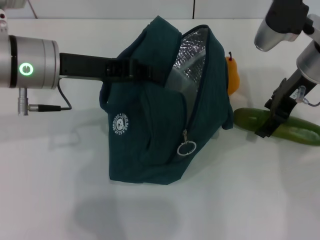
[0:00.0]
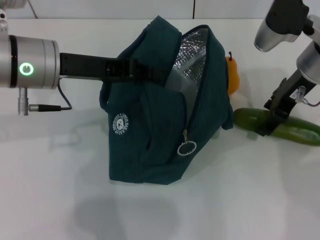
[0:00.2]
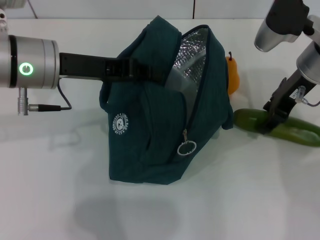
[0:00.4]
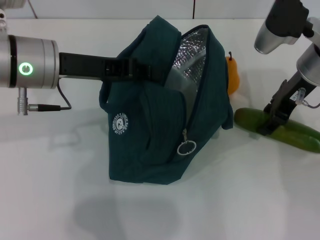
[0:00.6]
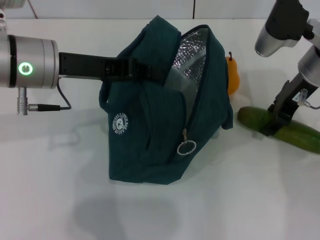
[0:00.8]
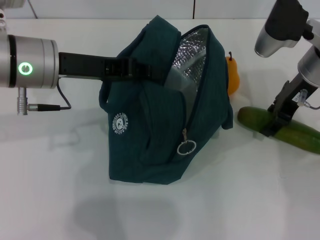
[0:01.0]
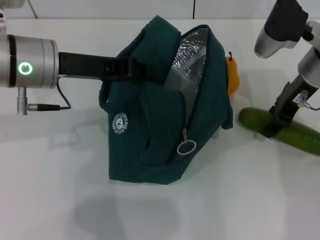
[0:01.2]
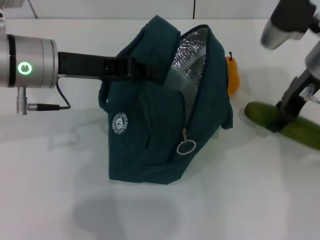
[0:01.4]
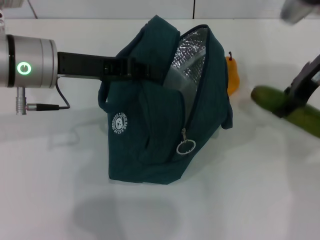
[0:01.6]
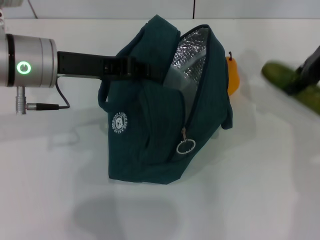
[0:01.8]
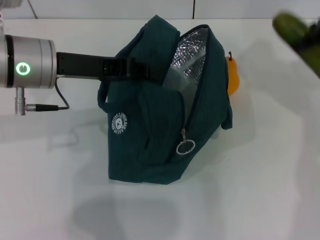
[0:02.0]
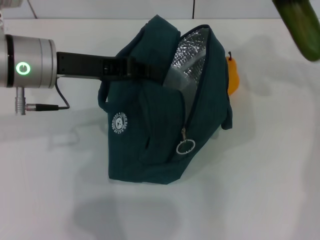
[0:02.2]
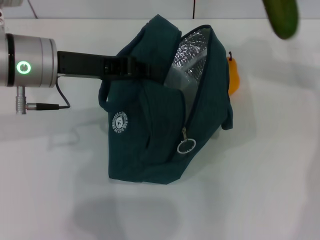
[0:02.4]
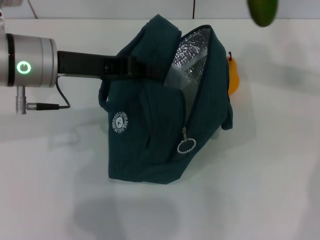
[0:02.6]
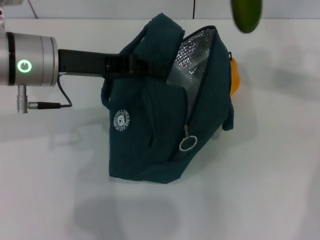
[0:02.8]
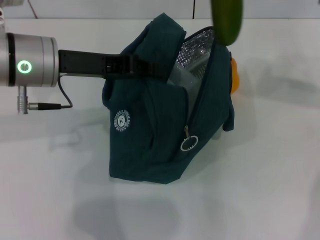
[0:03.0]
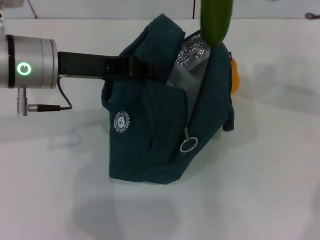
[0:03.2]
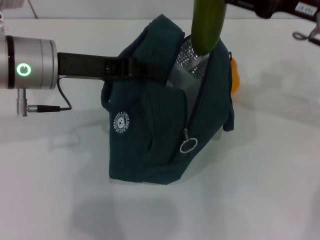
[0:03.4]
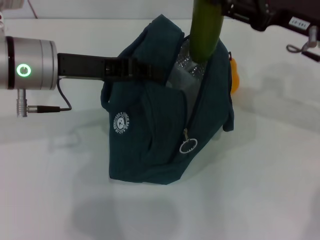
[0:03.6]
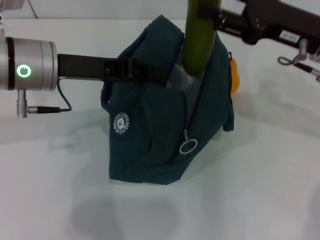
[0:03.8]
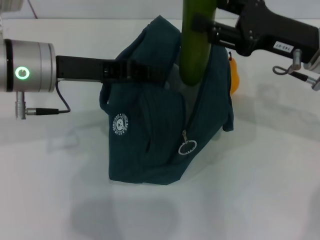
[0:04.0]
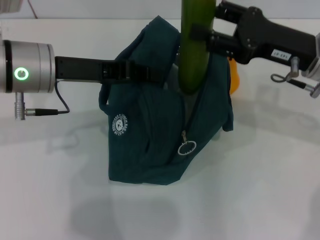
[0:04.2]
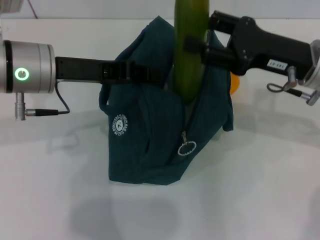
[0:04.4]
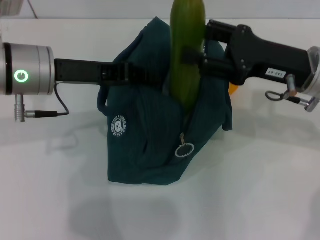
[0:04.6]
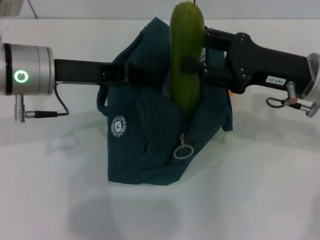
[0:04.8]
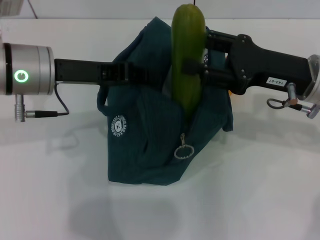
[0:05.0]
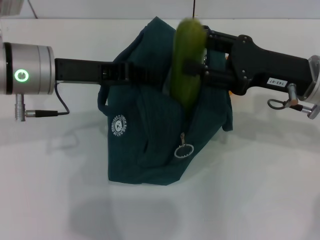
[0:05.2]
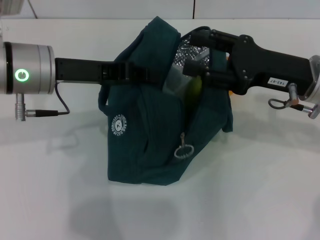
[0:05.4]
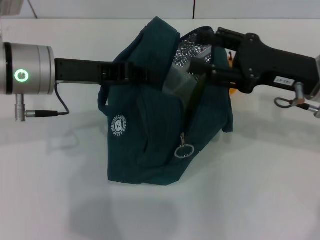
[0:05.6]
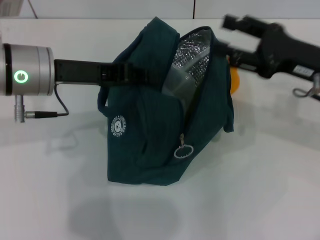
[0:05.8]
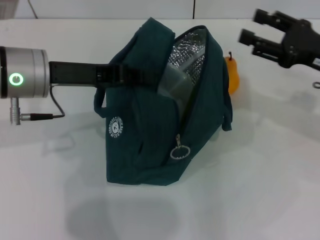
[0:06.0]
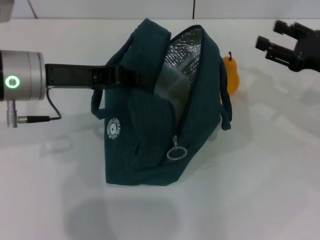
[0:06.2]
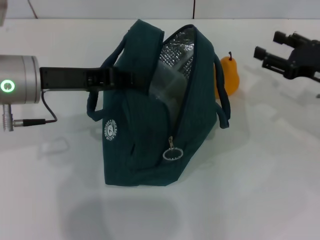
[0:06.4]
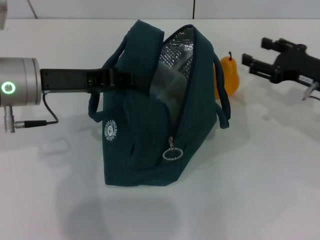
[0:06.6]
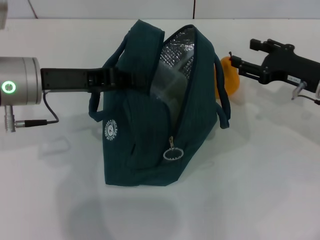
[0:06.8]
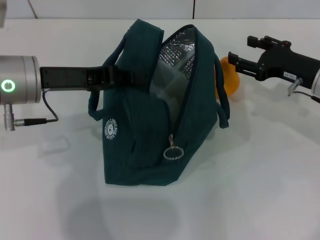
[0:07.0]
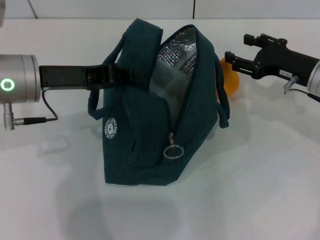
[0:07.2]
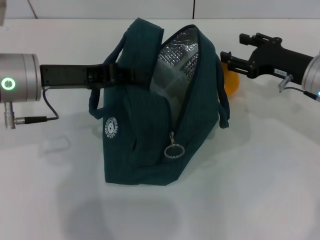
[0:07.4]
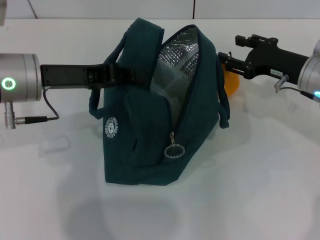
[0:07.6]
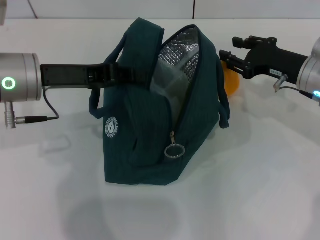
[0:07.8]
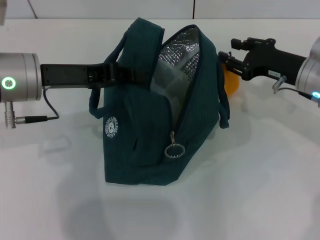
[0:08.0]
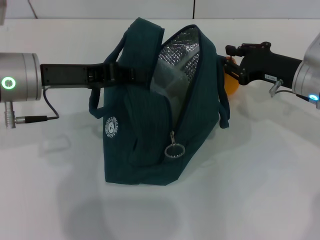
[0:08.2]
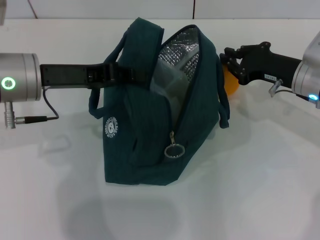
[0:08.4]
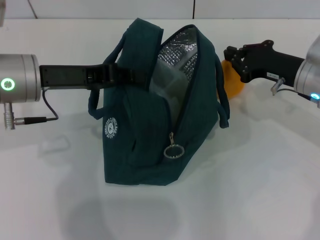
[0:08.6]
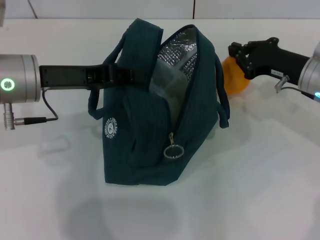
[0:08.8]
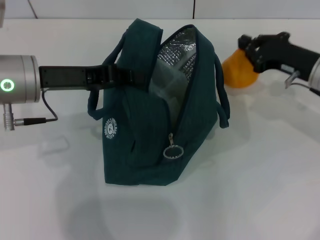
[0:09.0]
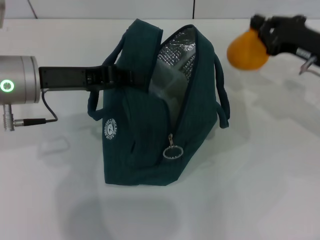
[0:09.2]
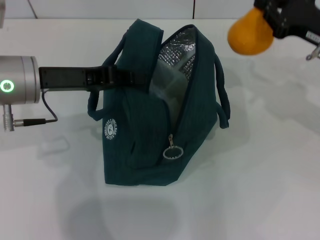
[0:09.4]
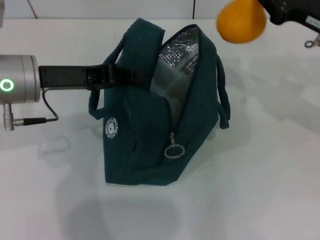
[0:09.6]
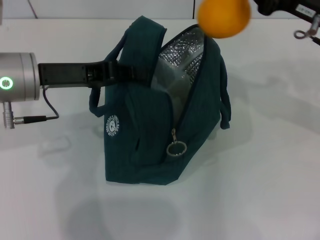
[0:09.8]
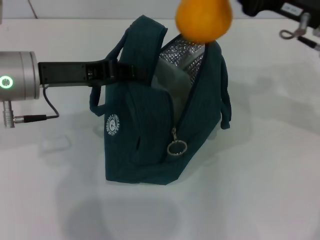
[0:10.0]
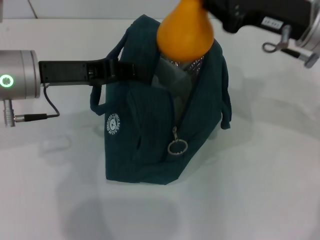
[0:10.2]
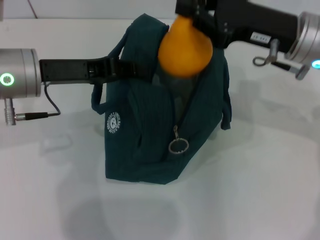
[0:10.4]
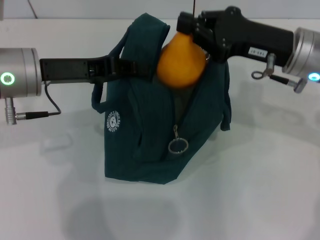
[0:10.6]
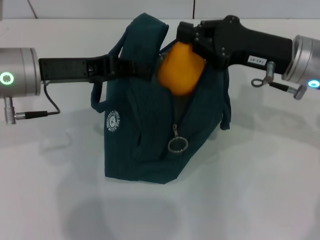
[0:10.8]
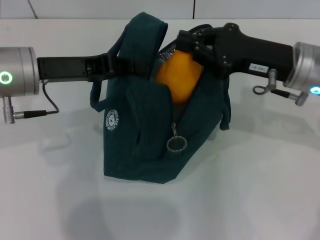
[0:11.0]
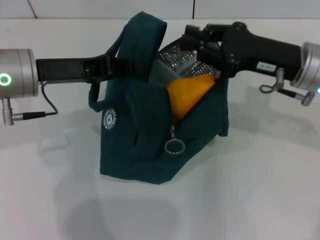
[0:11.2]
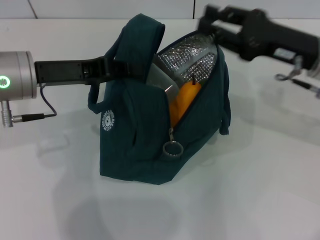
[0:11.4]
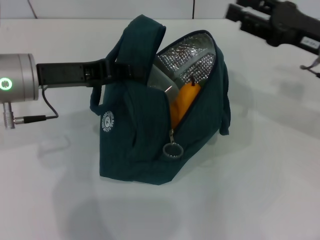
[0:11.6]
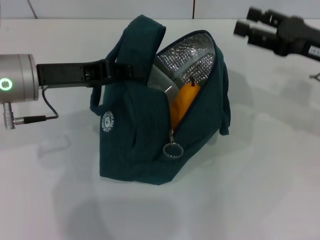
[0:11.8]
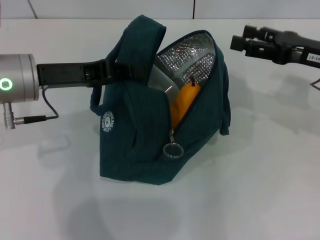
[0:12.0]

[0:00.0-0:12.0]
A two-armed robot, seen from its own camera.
Step, 0:01.0 to 0:05.4: Put the cucumber into the lunch bag with your right hand.
Step, 0:05.6 to 0:08.4: Grab the pear with your right hand.
0:00.0 to 0:01.6: The grippers stay close to where they were, moving slightly.
0:01.6 to 0:03.0: The right gripper heads upward, covering approximately 5 cm.
0:03.0 to 0:04.4: The right gripper moves downward, roughly 10 cm.
0:04.4 to 0:06.0: The right gripper is displaced to the right by roughly 5 cm.
0:06.0 to 0:07.6: The right gripper ends up roughly 5 cm from where it was.
0:07.6 to 0:09.0: The right gripper closes its fingers.
0:09.0 to 0:10.4: The right gripper is displaced upward and to the left by about 10 cm.
0:10.4 to 0:12.0: The right gripper shifts roughly 10 cm to the right, and opens its fingers.

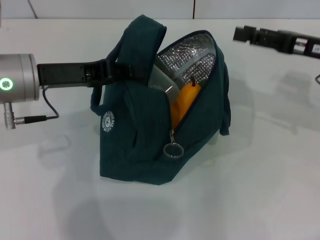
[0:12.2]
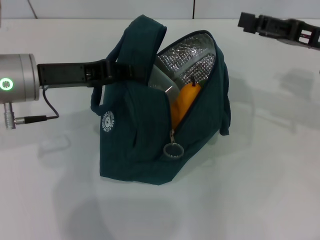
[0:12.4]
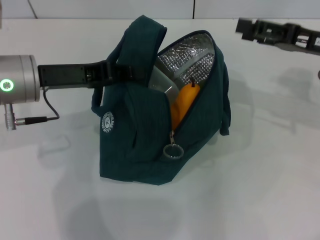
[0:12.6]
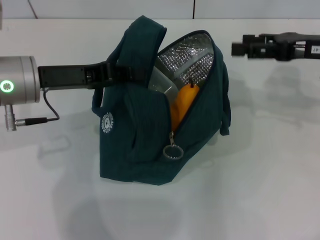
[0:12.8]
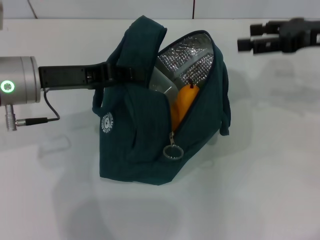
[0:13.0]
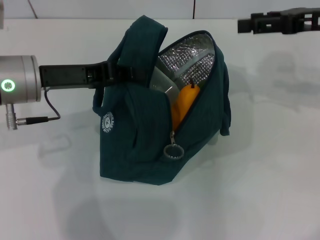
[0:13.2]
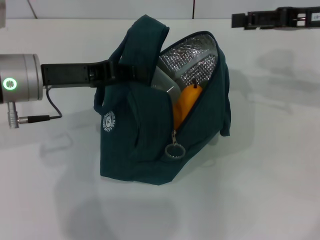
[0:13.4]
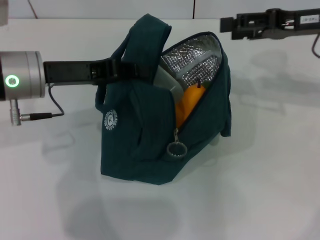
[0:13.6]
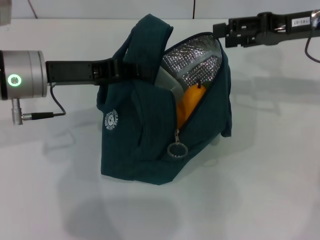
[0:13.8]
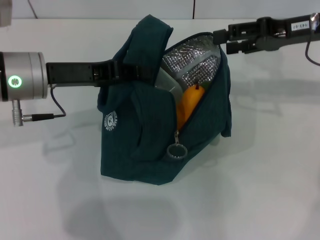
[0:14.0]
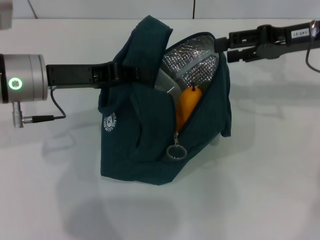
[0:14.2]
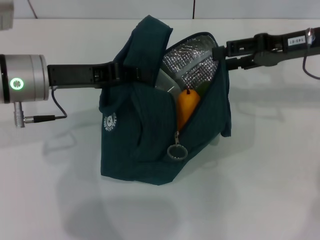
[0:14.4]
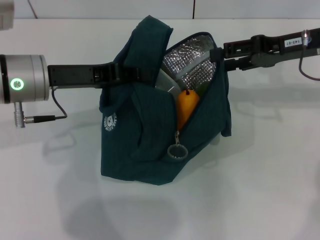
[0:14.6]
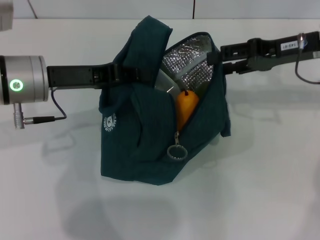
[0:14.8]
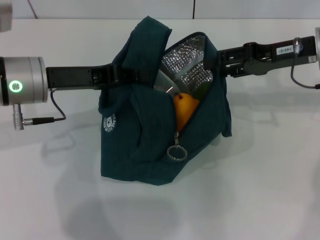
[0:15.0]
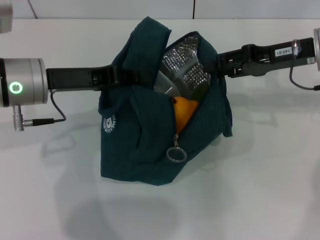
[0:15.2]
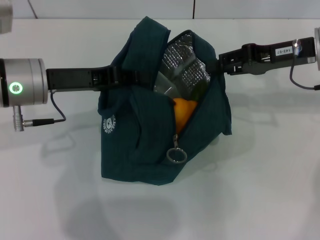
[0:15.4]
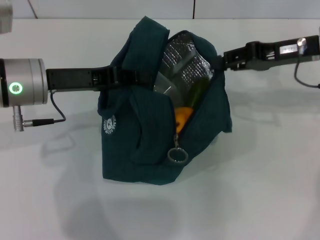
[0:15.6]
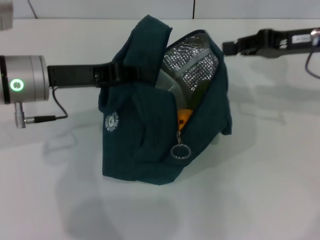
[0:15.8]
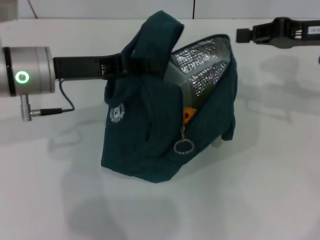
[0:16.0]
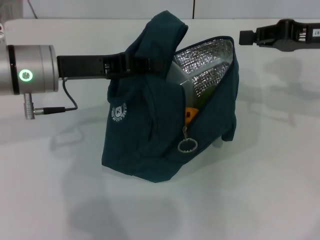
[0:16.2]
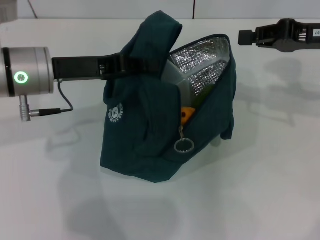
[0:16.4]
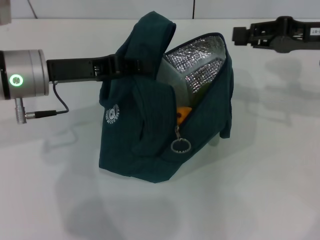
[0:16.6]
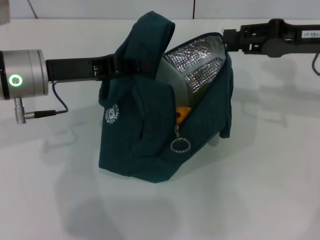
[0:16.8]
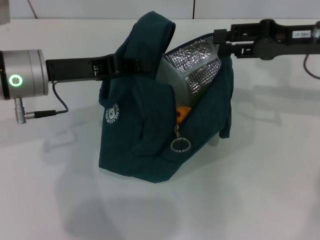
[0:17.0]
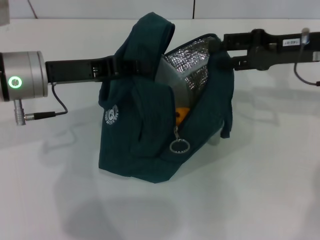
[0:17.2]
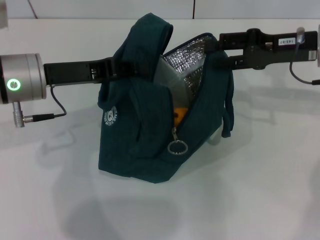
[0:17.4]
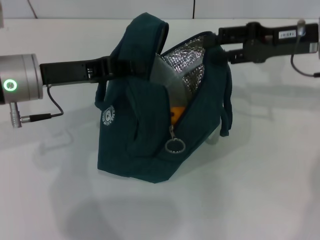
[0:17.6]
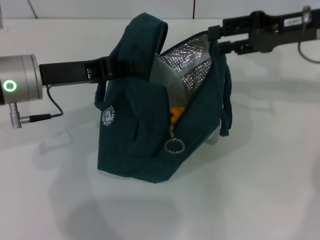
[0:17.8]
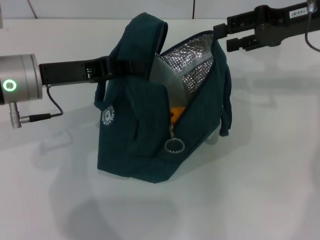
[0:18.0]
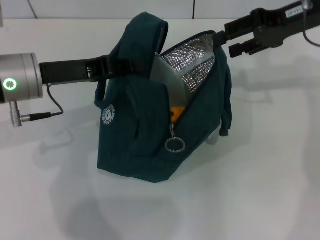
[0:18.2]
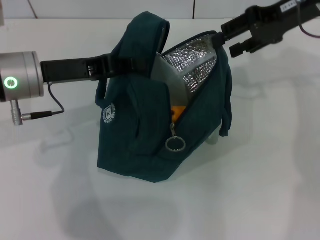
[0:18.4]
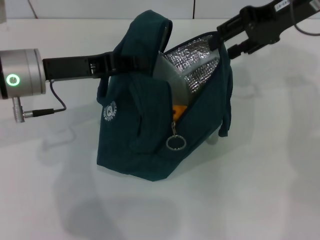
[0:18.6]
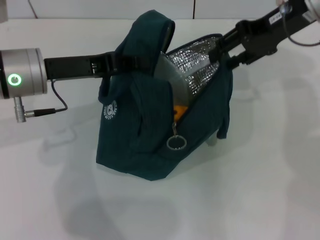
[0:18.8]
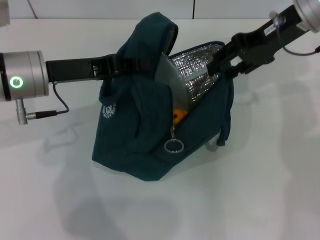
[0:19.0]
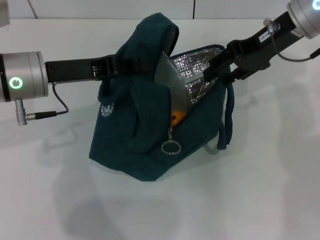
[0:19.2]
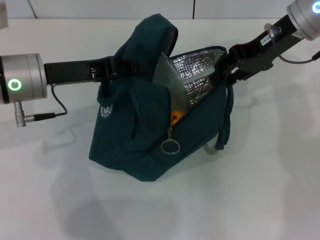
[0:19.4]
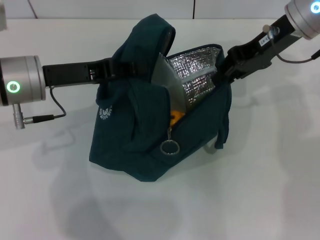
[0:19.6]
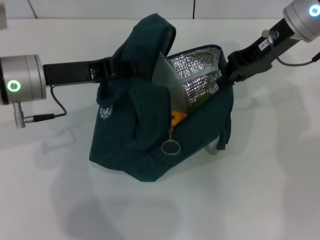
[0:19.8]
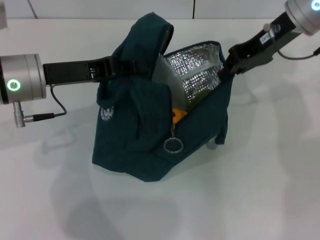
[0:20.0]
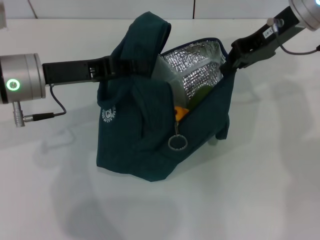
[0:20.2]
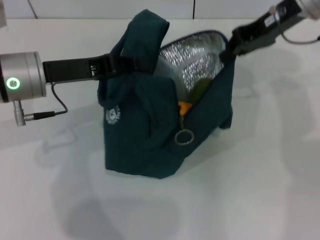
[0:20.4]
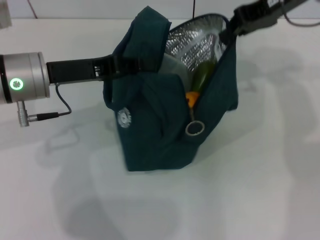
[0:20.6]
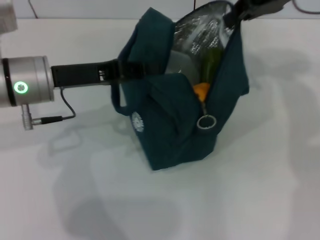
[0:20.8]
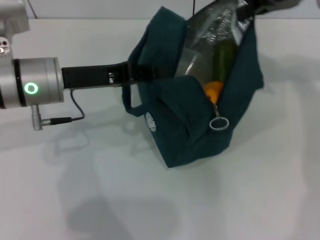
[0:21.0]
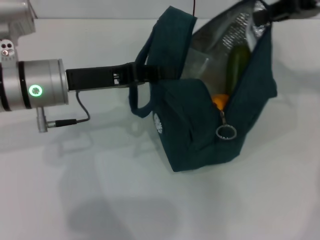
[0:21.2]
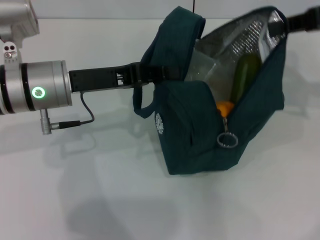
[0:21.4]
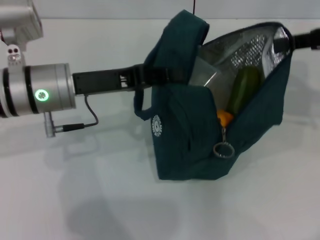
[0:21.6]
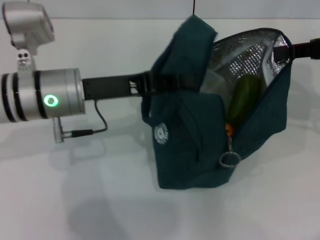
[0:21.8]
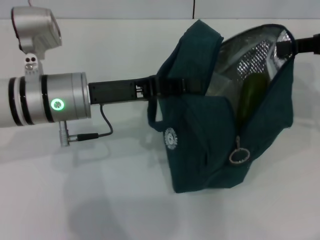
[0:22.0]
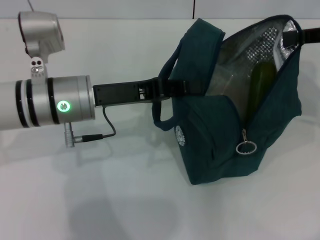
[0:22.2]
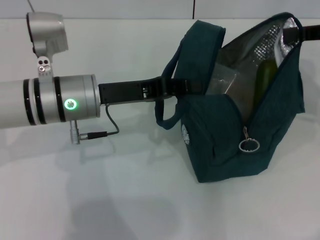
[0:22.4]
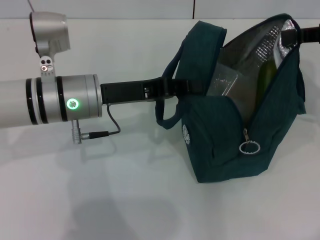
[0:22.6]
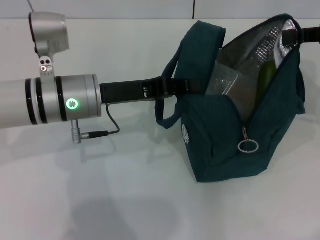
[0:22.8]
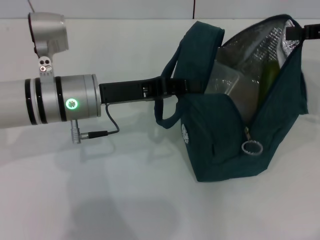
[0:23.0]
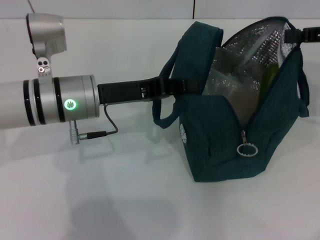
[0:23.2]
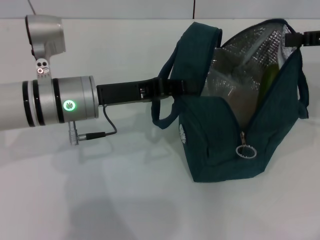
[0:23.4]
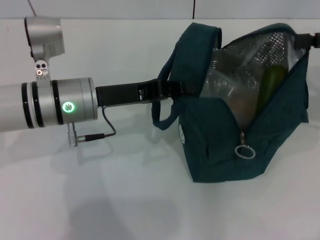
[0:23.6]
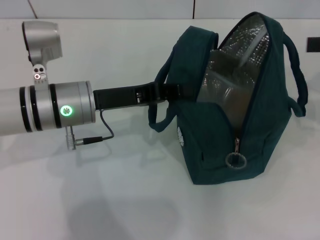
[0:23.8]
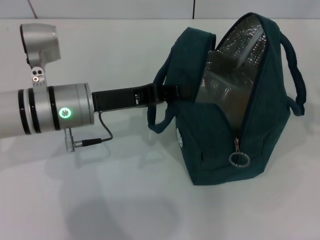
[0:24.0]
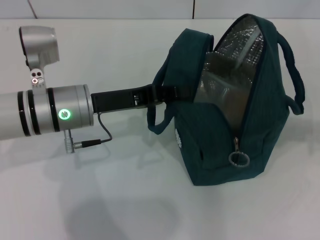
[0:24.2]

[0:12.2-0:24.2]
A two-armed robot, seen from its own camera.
Step, 0:12.2 to 0:23.6: Hold the lunch bag with your right hand.
0:12.2 to 0:13.8: The right gripper ends up roughly 5 cm from where it was.
0:13.8 to 0:15.2: The grippers make only small movements.
0:15.2 to 0:16.6: The right gripper closes.
0:16.6 to 0:18.2: The right gripper changes place by approximately 10 cm, and opens up.
0:18.2 to 0:19.8: The right gripper shifts roughly 5 cm to the left, and closes up.
0:19.8 to 0:21.2: The right gripper is displaced to the right by some 10 cm.
0:21.2 to 0:22.6: The right gripper changes place by about 5 cm.
0:22.6 to 0:24.2: The right gripper is displaced backward and to the right by some 10 cm, and opens up.
